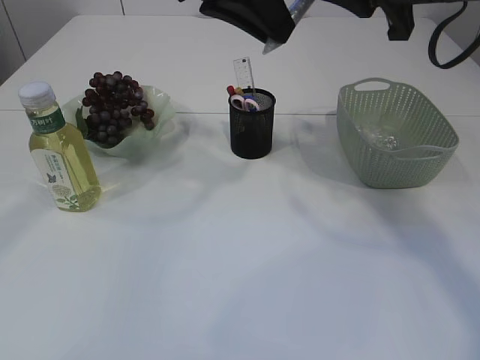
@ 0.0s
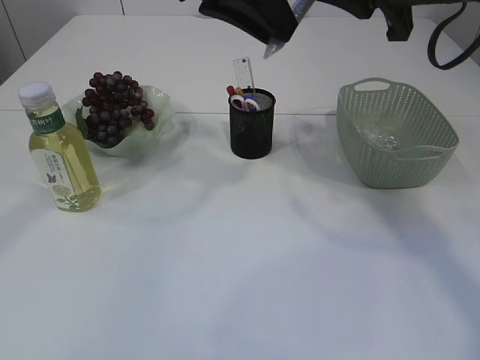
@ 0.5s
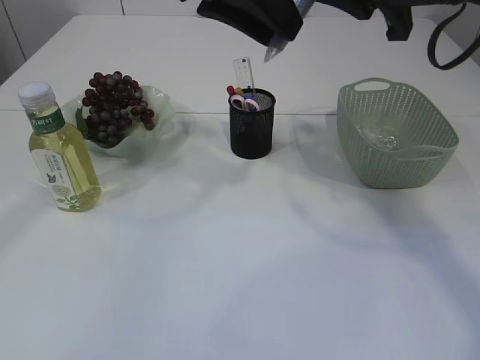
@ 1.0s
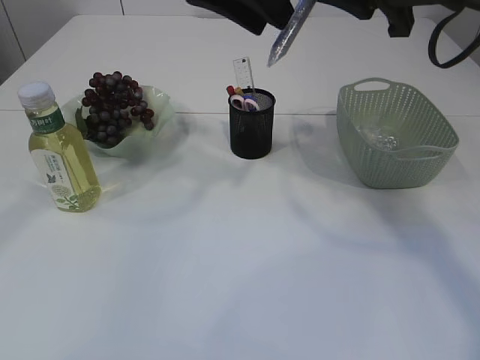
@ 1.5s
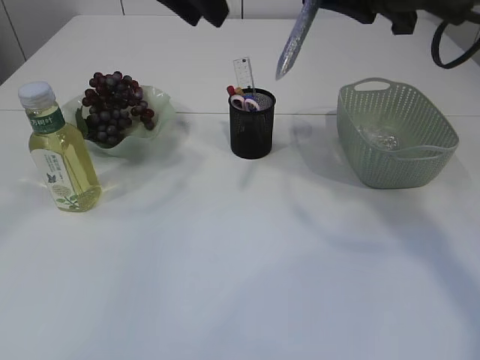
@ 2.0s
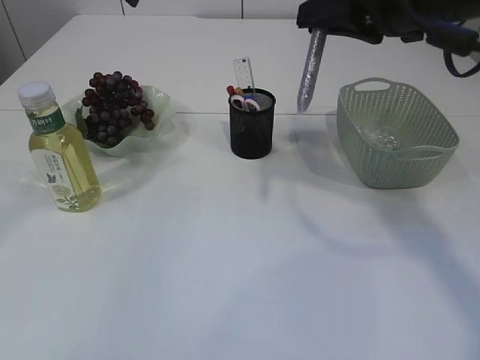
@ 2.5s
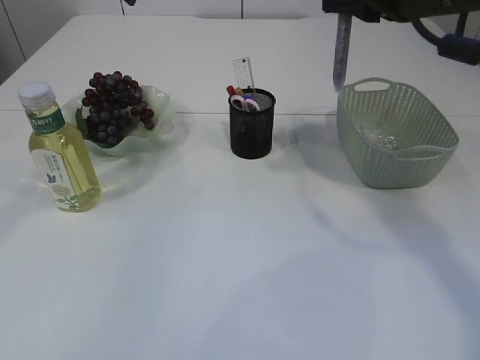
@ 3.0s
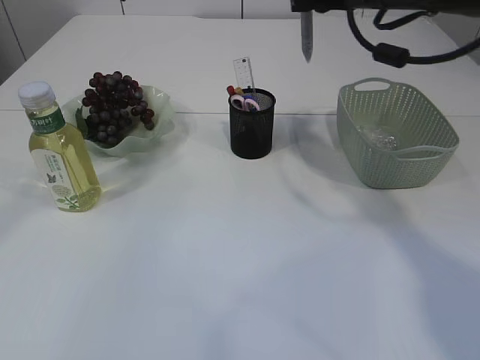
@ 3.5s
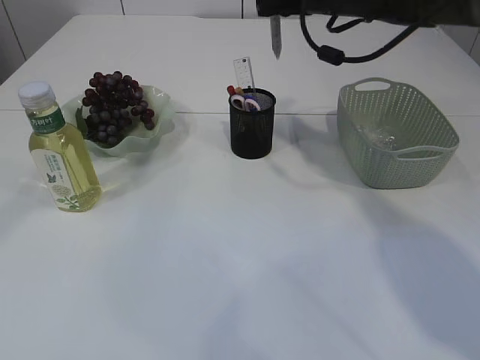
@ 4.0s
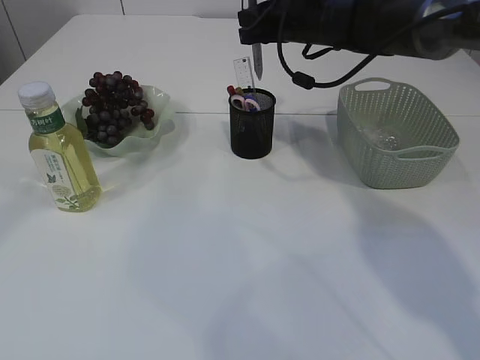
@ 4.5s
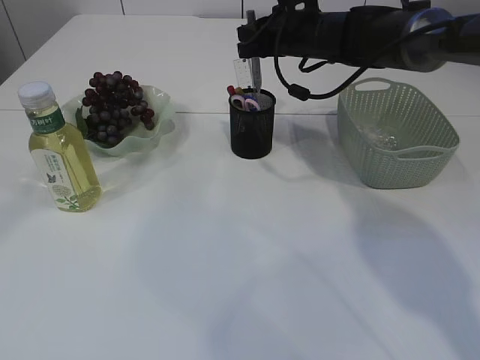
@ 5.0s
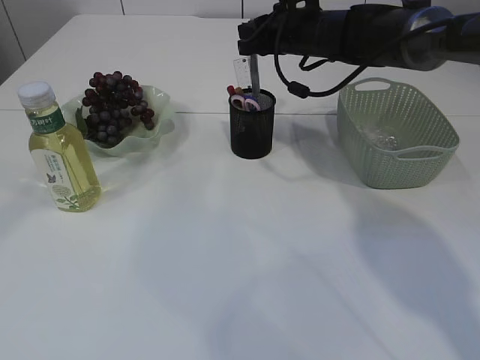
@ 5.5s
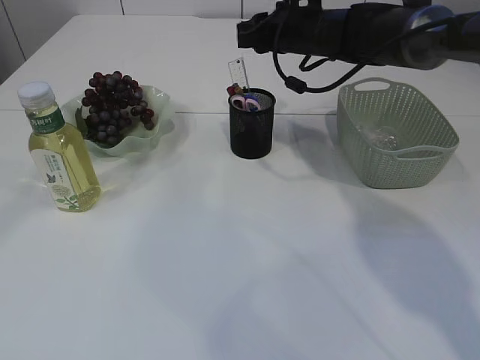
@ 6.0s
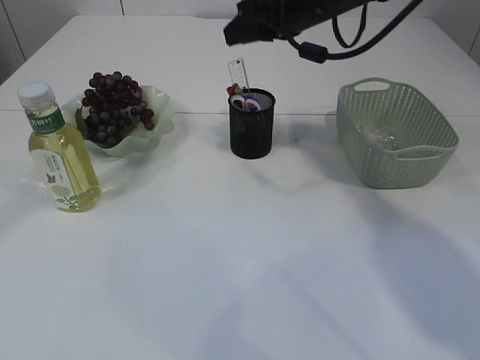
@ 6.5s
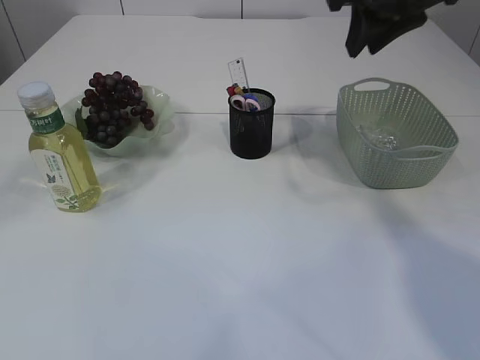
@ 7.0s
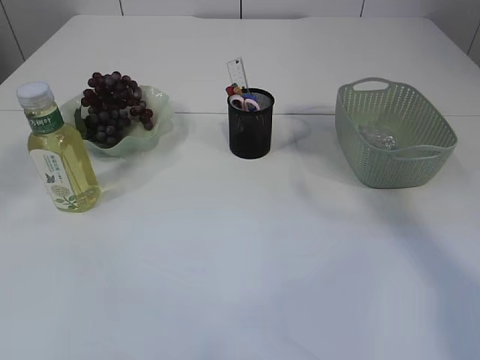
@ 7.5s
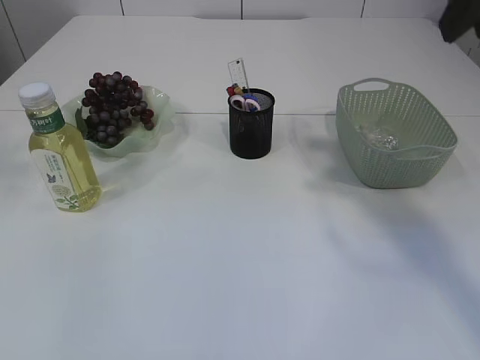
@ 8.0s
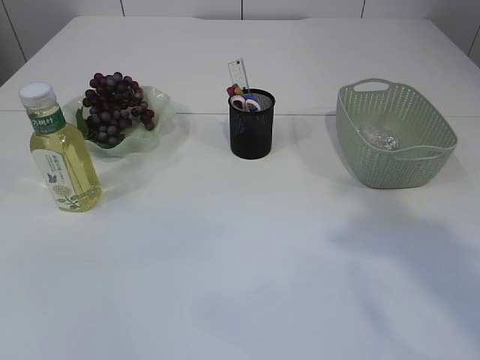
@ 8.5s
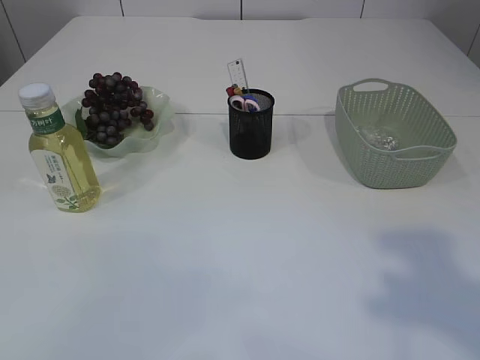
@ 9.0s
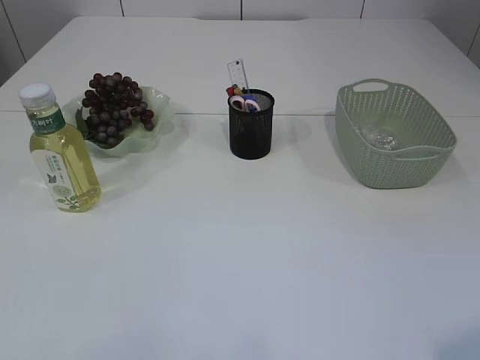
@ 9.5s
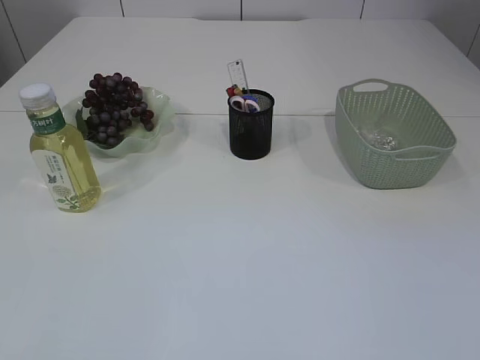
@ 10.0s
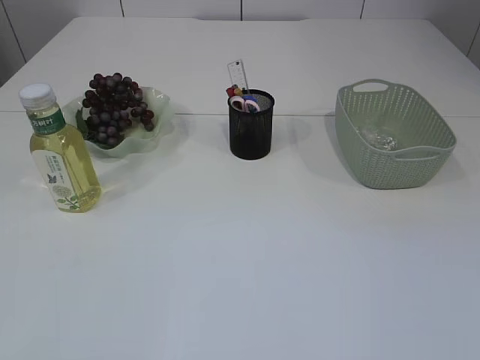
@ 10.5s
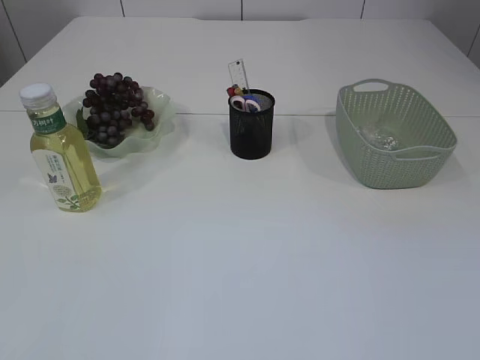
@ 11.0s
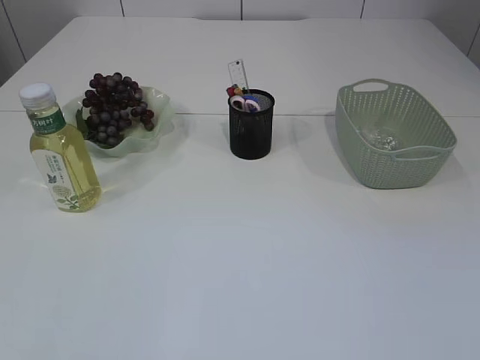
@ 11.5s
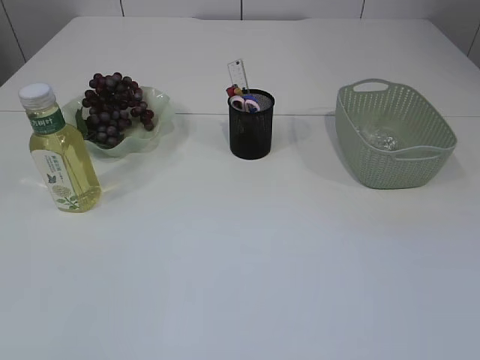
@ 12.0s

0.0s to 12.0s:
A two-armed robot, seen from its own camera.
Step, 0.0s to 2.0s: Hand over the silver glue.
Step, 2.5s to 6.0s: place the silver glue into the pen holder.
0.0s to 2.0s: The left gripper opens.
2.0s to 4.0s: The right gripper moves forward, some 15 cm. The left gripper ends up roughly 5 cm from where it was.
4.0s to 6.0s: The right gripper is displaced downward by some 5 cm.
6.0s to 8.0s: The right gripper is displaced backward, upward and to the right by some 30 cm. The left gripper moves backward, to the left and upward, approximately 20 cm.
8.0s to 10.0s: The right gripper goes some 30 cm backward.

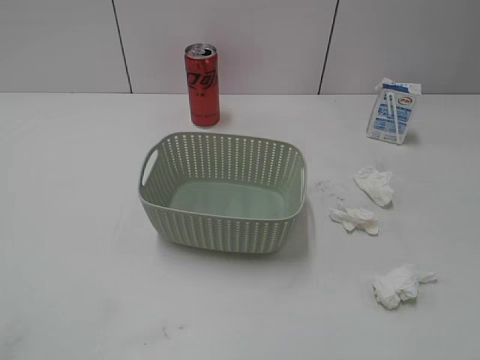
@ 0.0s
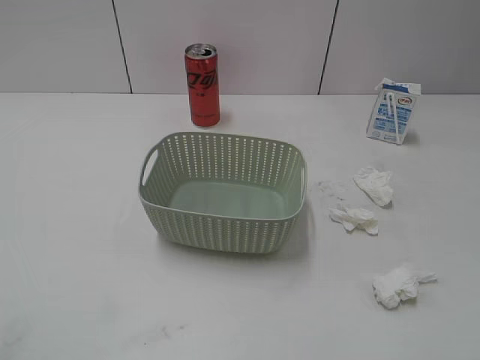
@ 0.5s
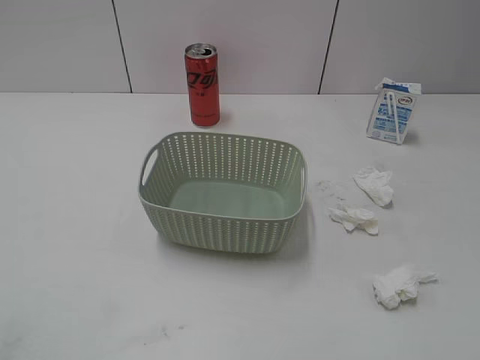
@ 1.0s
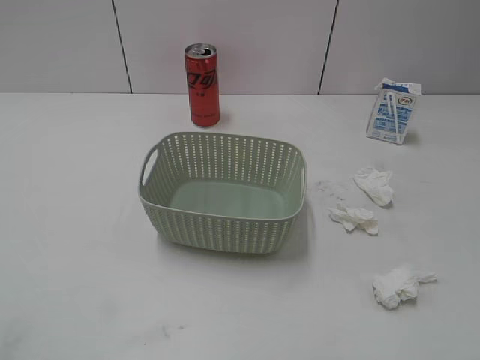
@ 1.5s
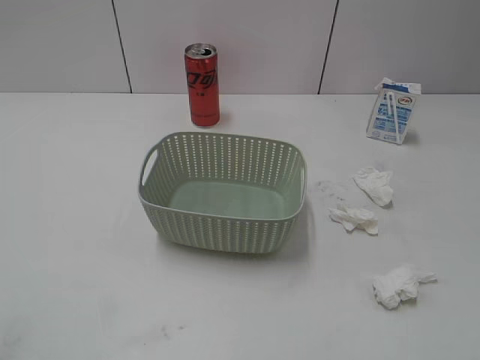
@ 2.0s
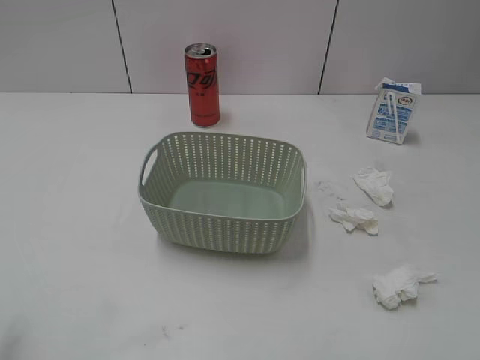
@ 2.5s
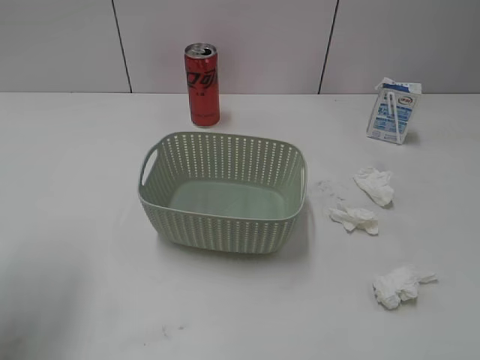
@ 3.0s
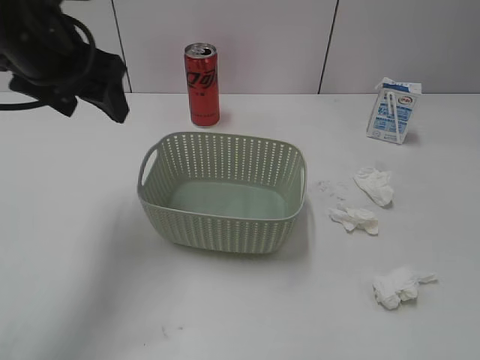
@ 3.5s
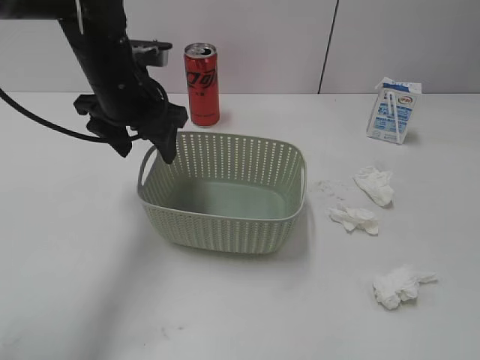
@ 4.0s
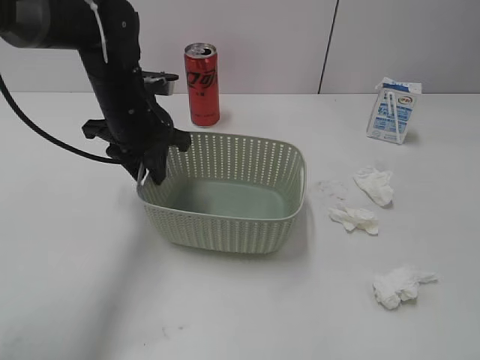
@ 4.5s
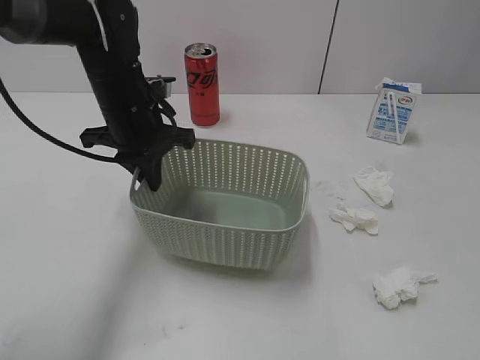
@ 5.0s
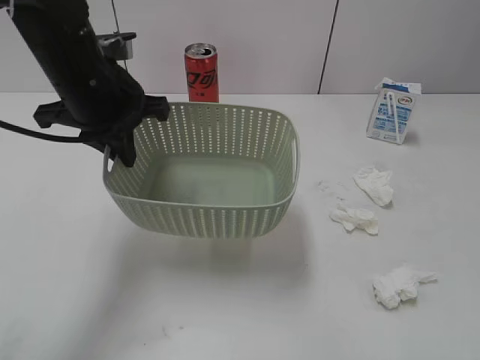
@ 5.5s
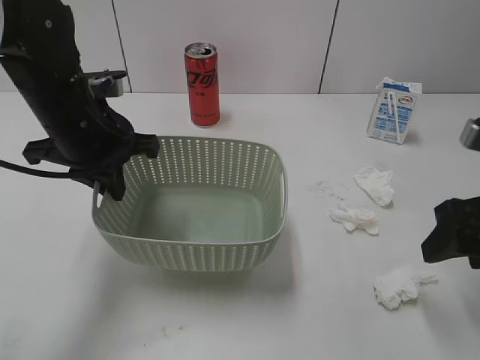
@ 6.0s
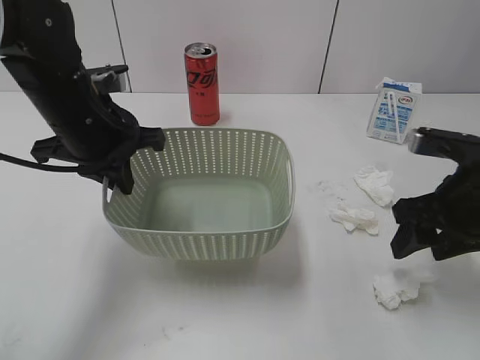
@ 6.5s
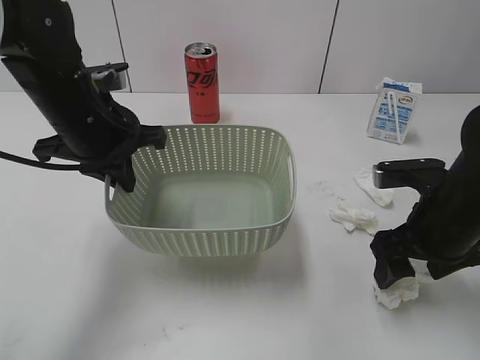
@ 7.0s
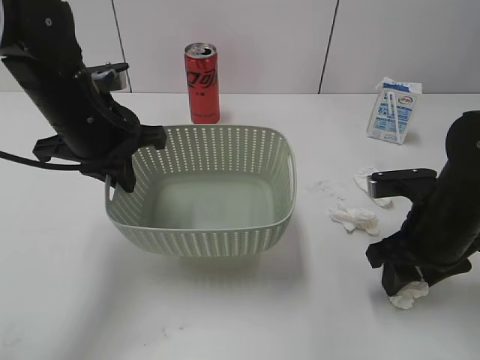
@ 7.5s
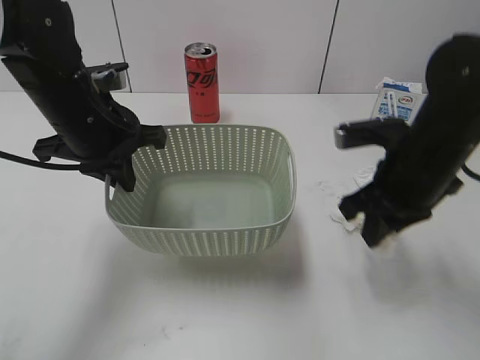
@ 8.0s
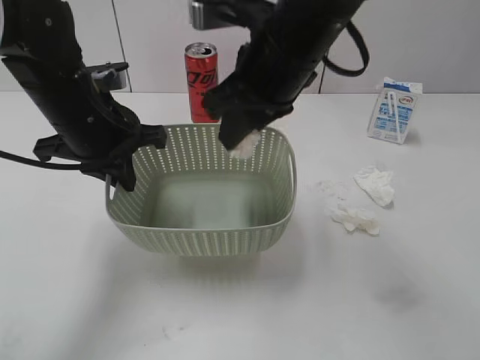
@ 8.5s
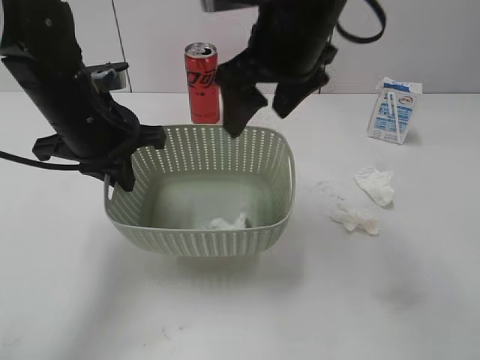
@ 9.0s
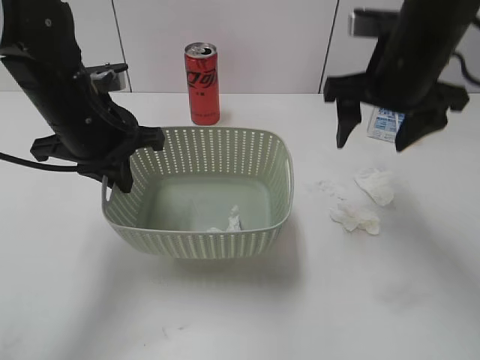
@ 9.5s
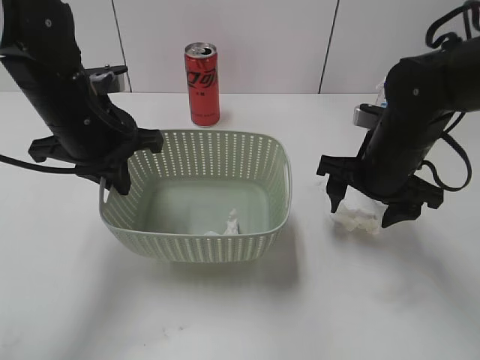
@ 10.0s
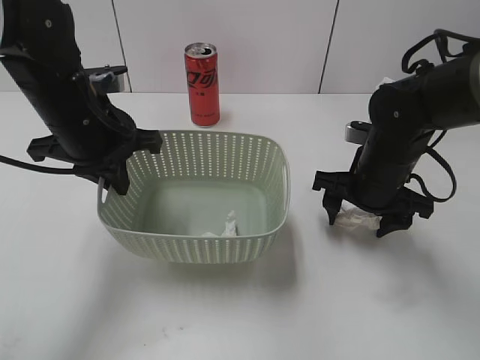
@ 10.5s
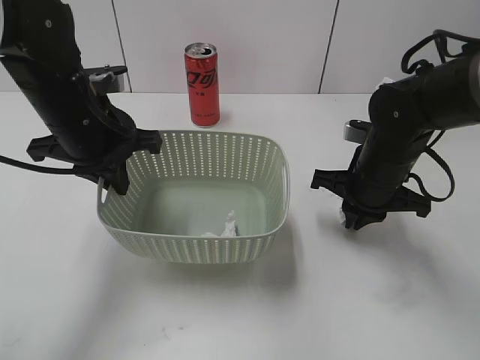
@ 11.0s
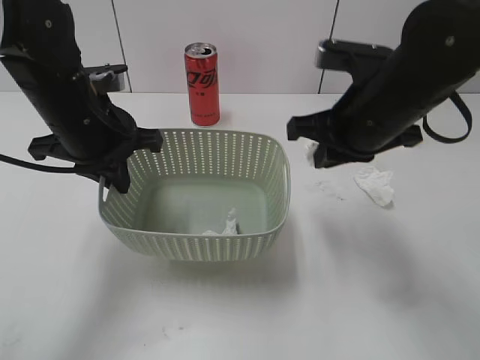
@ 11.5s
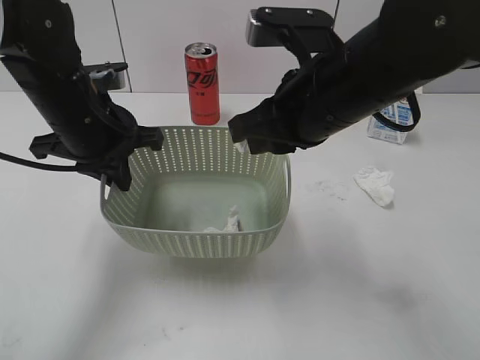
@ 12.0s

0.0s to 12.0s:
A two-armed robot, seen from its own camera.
Step, 2.5s to 4.5s: Grasp the basket with left gripper.
Step, 5.0s to 5.5s: Lift the basket with left gripper.
Step, 6.0s to 7.5s: Grasp the waste paper with right gripper.
Step, 8.0s to 8.5s: Place the waste paper in the basket with right gripper.
Step, 9.0s to 11.0s: Grasp the waste paper with right gripper.
2.0s to 4.0s: The left gripper travels forward and to the right by approximately 40 cm.
4.0s to 6.0s: The right gripper moves forward, roughly 20 cm, while the left gripper shifts some 5 cm backward, and closes.
6.0s to 8.0s: The right gripper heads to the left and forward, covering roughly 10 cm, and closes.
8.0s to 10.0s: The right gripper moves some 10 cm upward and comes back, and opens up.
10.0s to 12.0s: The right gripper goes some 15 cm upward and to the left, and closes its fingers.

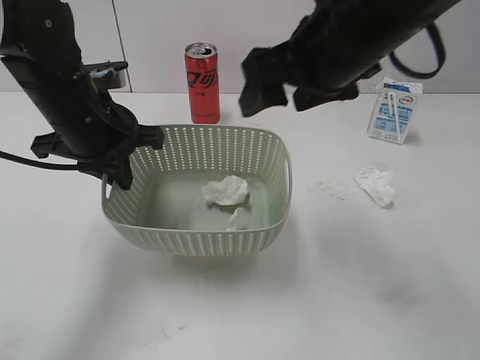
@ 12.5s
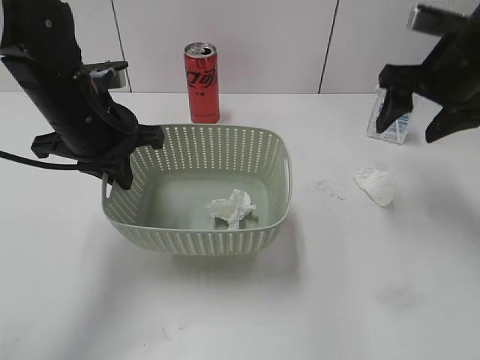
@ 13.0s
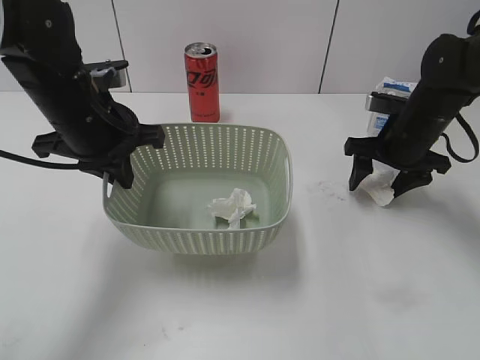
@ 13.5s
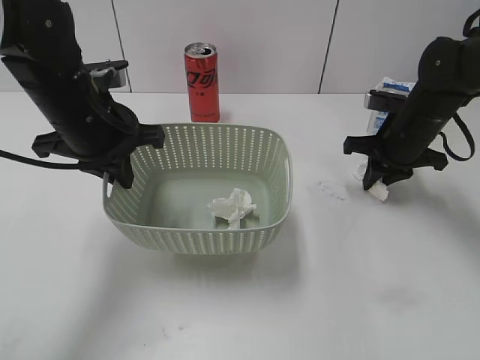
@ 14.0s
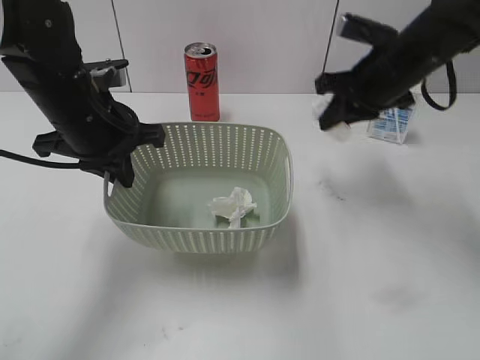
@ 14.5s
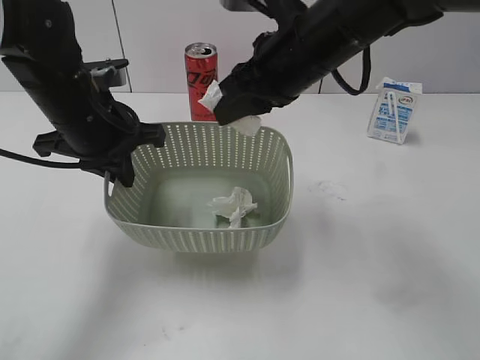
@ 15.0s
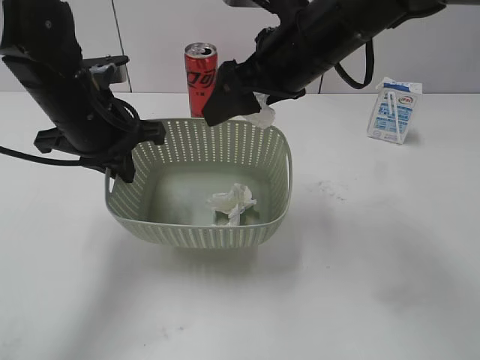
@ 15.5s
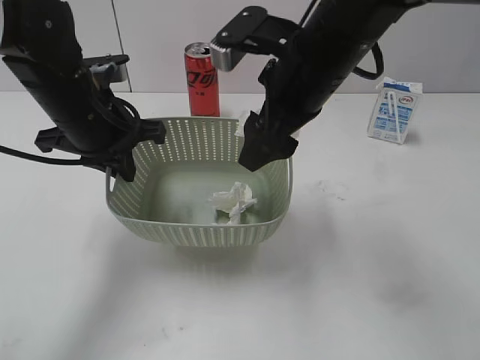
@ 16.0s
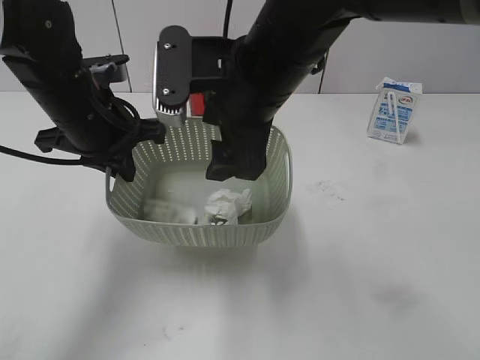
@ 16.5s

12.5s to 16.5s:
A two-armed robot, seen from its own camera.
Step, 12.5s to 14.0s: Grasp the waste paper with right gripper.
Step, 14.5s to 16.0s: Place the waste paper in the basket with right gripper.
12.5s to 14.5s: The right gripper shifts about 20 cm forward, to the right and downward, and closes up.
14.5s to 16.5s: The right gripper heads to the left and backward, covering some 20 cm, and opens up.
